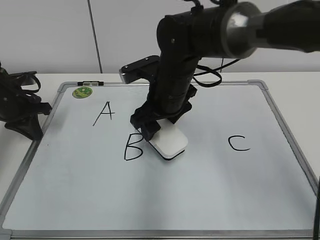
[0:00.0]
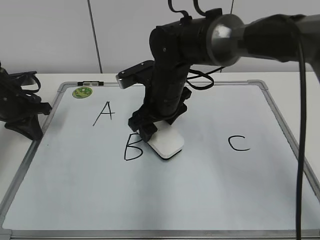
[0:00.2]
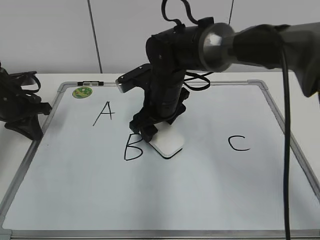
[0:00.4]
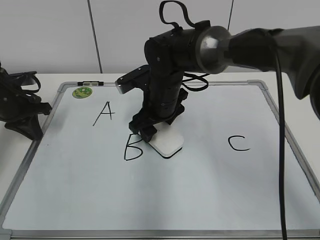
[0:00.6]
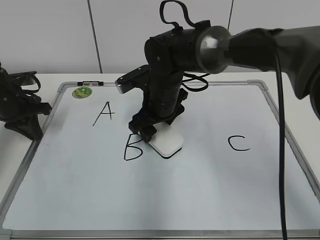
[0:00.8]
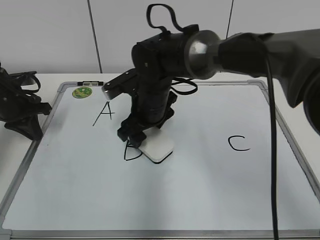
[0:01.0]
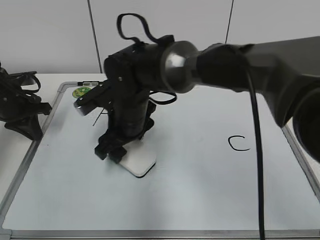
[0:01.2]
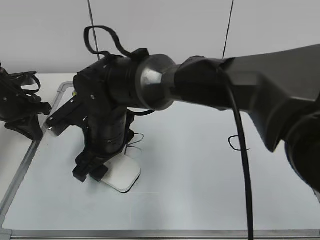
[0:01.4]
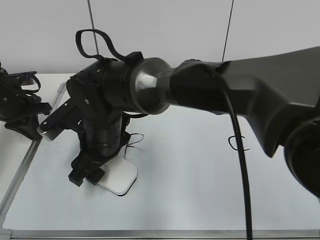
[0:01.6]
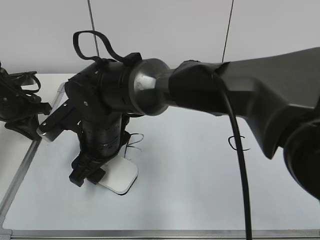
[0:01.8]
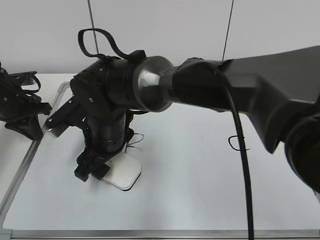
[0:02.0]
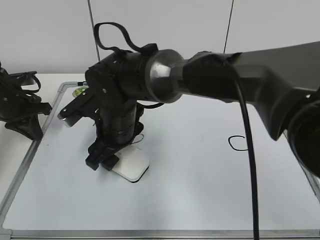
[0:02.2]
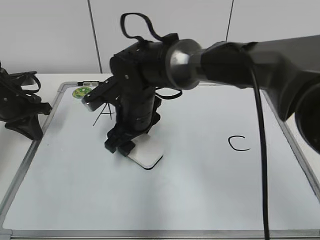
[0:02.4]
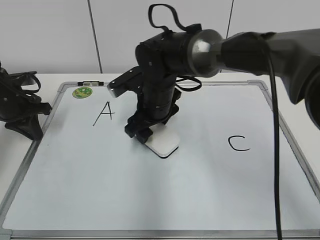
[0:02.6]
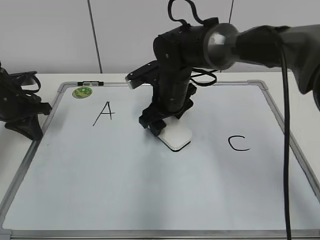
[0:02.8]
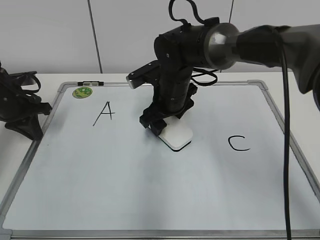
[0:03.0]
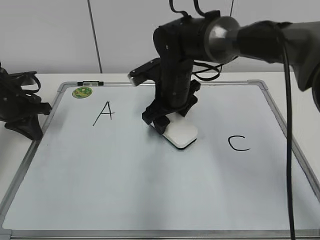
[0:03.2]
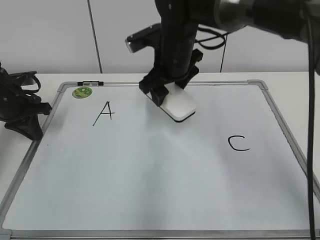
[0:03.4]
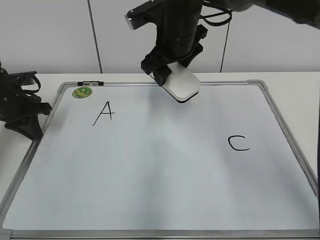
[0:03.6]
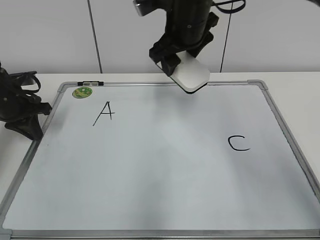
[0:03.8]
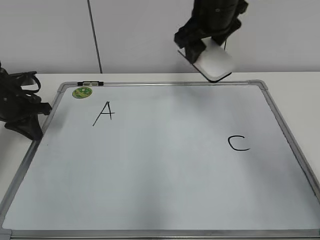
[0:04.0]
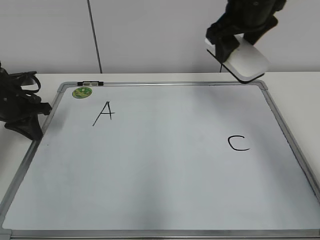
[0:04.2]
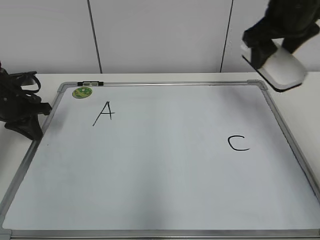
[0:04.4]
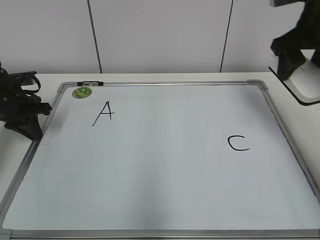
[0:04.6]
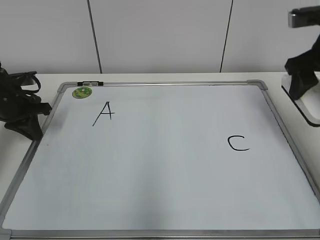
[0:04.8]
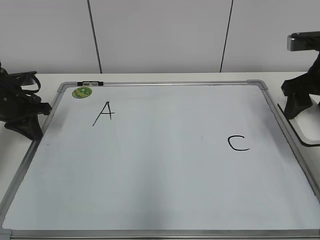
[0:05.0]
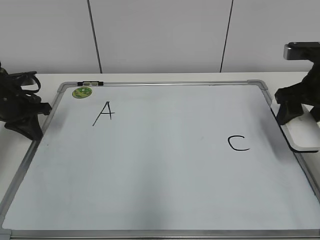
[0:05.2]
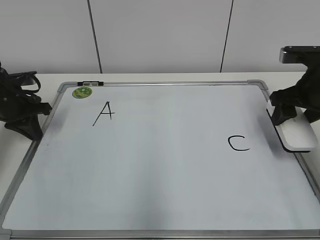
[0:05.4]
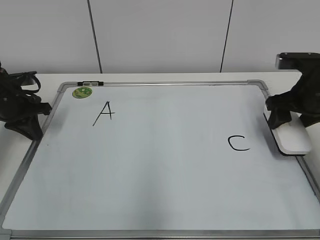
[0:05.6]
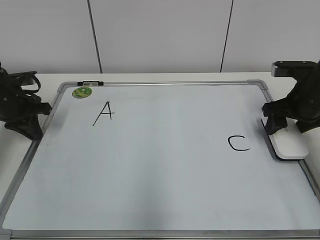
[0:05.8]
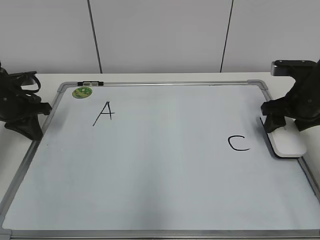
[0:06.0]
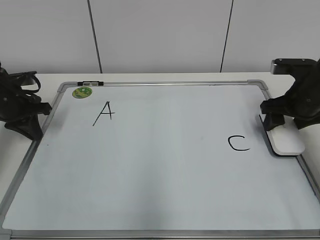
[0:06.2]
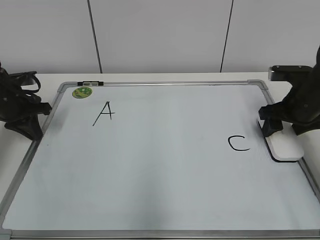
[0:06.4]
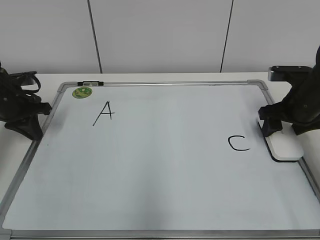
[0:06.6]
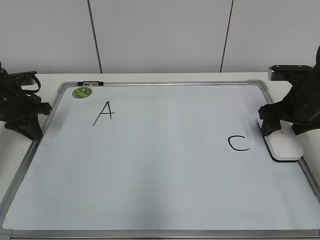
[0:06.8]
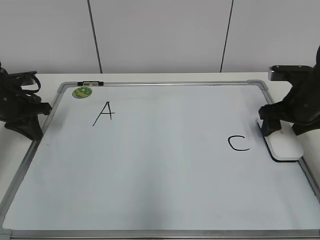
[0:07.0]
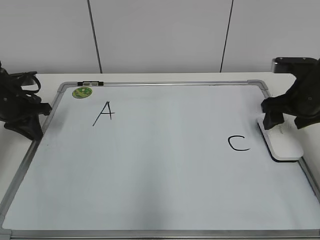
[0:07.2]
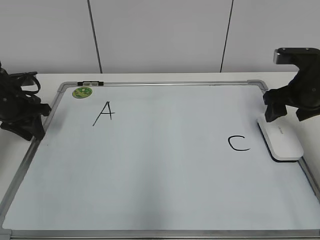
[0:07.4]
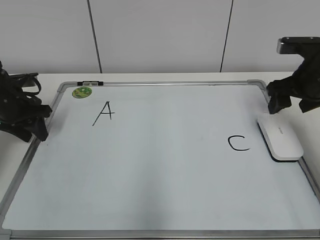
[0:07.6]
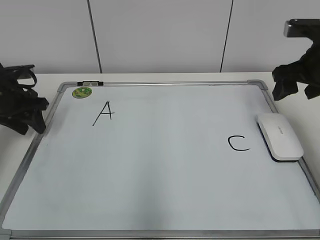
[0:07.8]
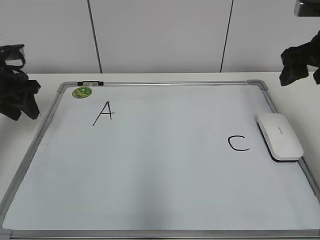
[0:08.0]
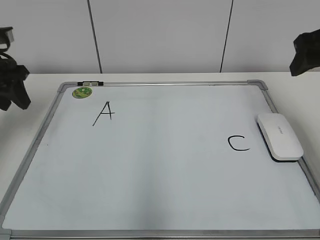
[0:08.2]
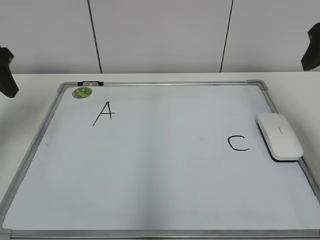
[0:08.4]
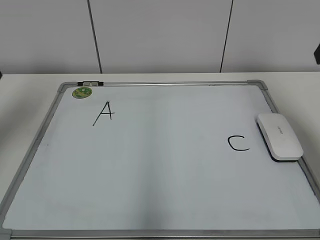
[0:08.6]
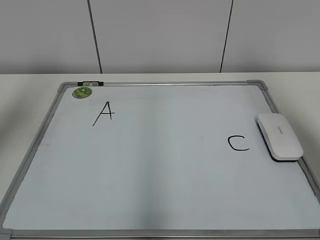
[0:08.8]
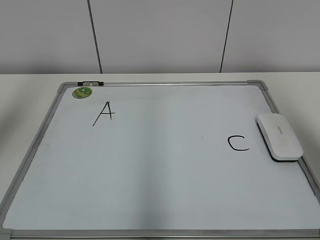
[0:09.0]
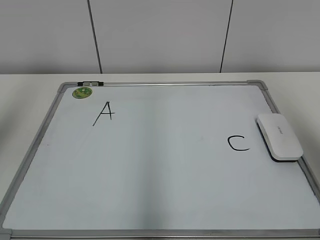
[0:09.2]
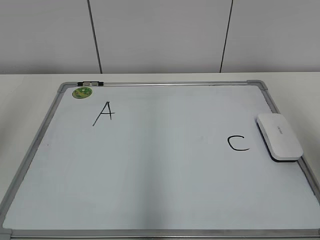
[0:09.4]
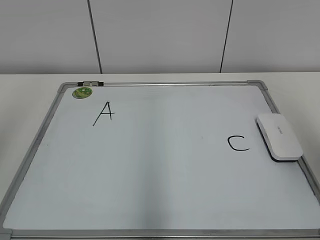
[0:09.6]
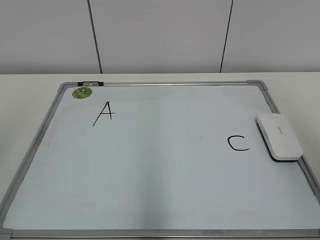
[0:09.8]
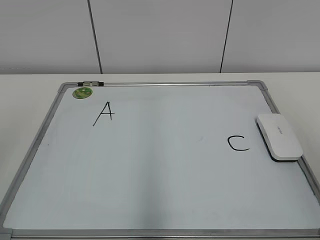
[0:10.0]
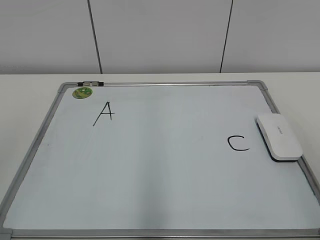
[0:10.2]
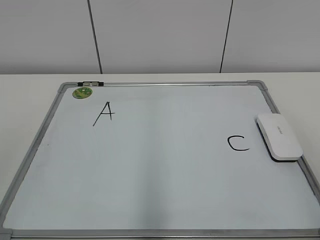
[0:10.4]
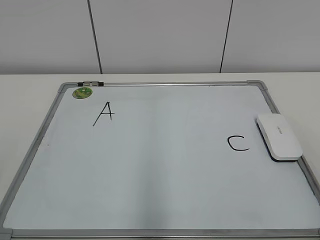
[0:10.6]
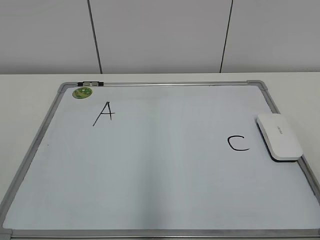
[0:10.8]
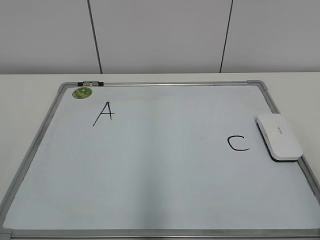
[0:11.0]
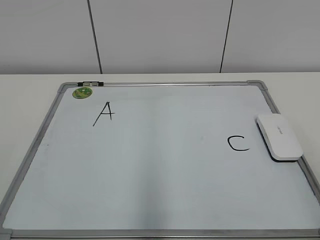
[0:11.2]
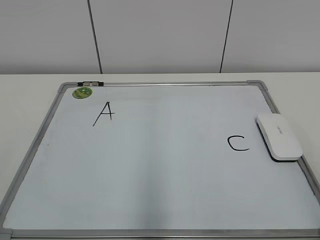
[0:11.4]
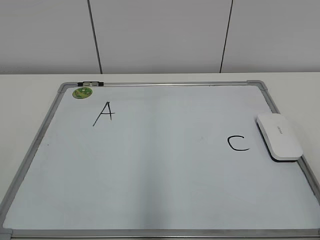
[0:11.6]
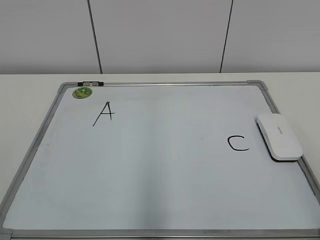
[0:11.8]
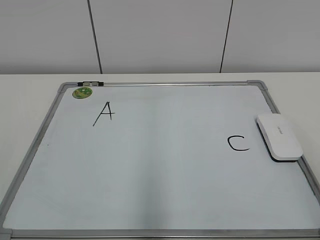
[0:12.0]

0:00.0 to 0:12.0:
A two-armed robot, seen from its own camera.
Task of the whole recording: pick up the eraser on the blackboard and erase the letter "B".
Step, 0:00.0 to 0:02.8: Erase the letter B with your right hand.
Step, 0:03.2 to 0:06.8: Put down the eraser with your right hand.
0:00.0 to 0:01.6: The right gripper heads to the left and backward, covering about 15 cm.
0:01.6 to 0:03.0: The right gripper moves to the right and forward, about 15 cm.
0:03.0 to 0:04.4: The right gripper heads upward and to the right, covering about 25 cm.
0:04.4 to 0:06.0: The right gripper travels downward and to the right by about 20 cm.
0:06.0 to 0:07.6: The left gripper opens its fingers. The right gripper opens its fingers.
0:07.6 to 0:09.0: The two grippers go some 25 cm upward and backward.
0:09.0 to 0:10.4: The grippers both shift backward by about 20 cm.

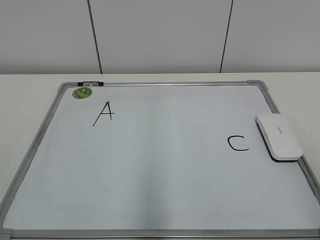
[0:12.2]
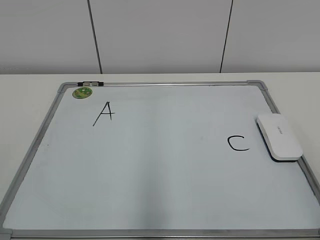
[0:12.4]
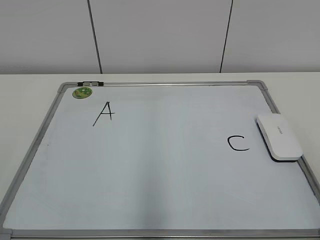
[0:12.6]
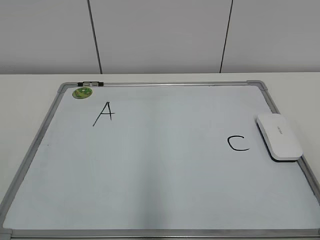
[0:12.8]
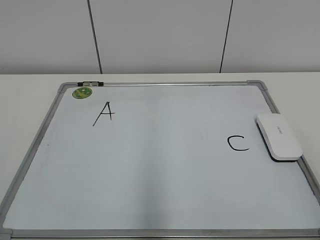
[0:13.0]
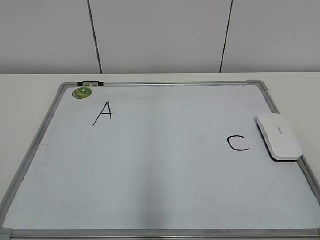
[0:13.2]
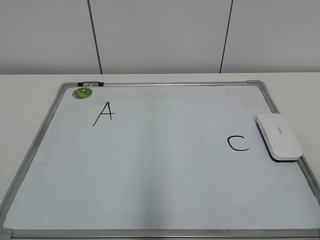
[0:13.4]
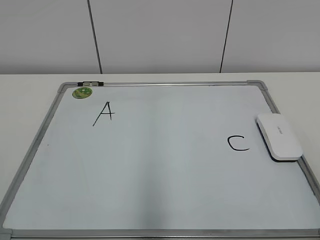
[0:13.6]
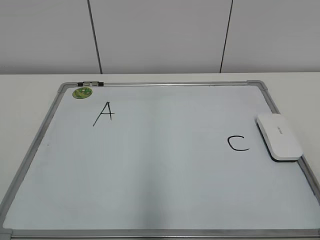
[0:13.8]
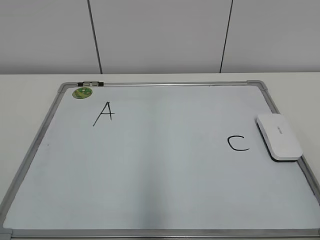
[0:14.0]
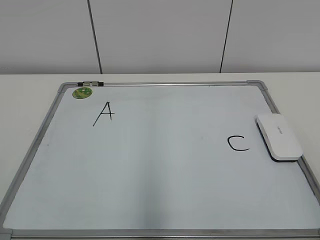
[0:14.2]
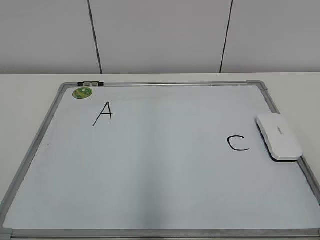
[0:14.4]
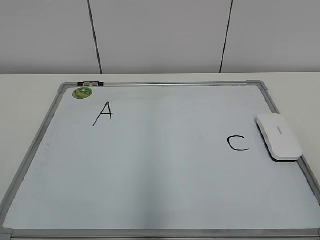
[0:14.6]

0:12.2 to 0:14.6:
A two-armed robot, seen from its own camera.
Task of the whole recording: pick up the eraser on the blackboard and erase the letter "B".
0:13.4 to 0:14.6: The two grippers keep their place.
